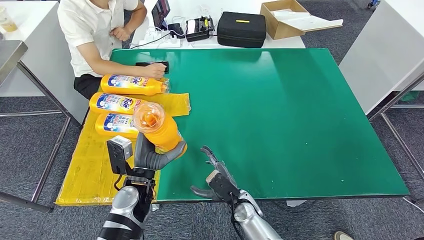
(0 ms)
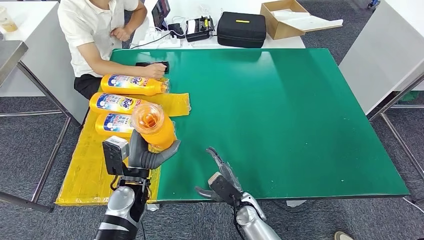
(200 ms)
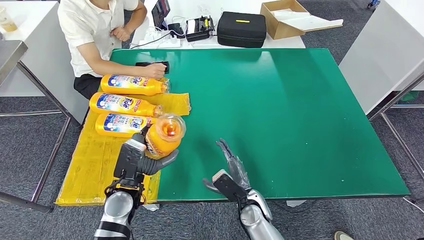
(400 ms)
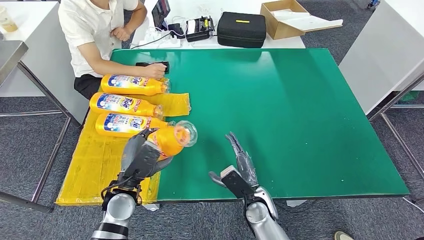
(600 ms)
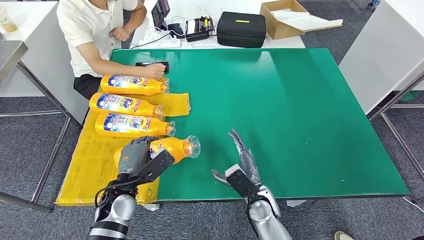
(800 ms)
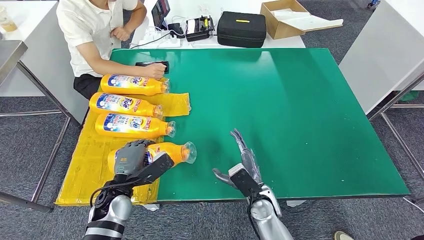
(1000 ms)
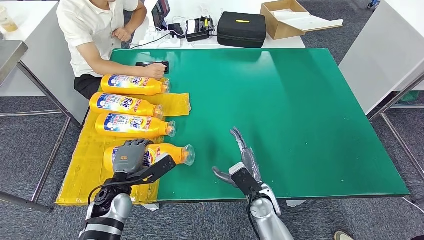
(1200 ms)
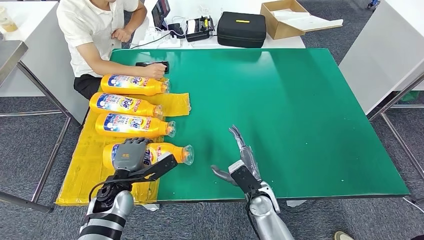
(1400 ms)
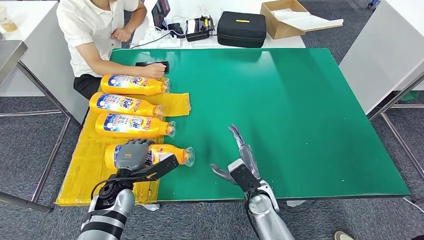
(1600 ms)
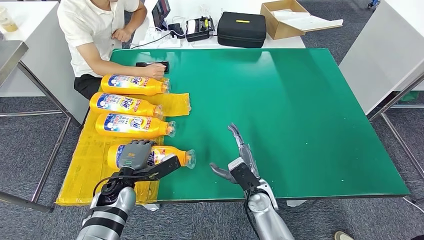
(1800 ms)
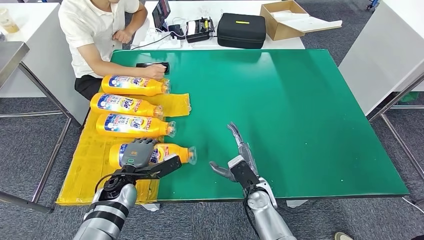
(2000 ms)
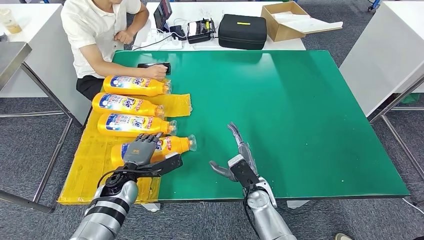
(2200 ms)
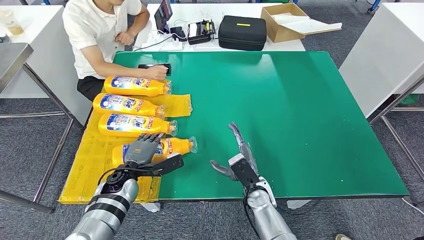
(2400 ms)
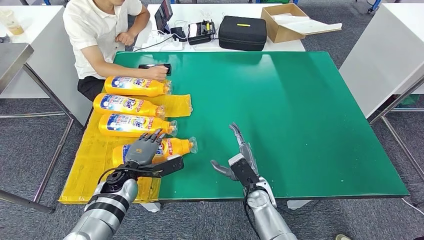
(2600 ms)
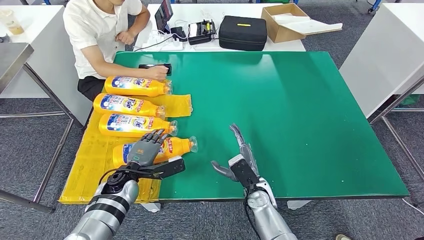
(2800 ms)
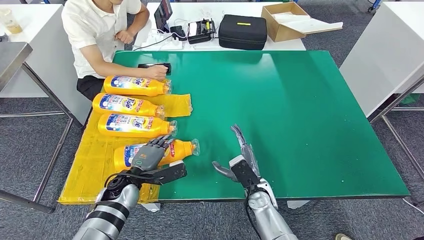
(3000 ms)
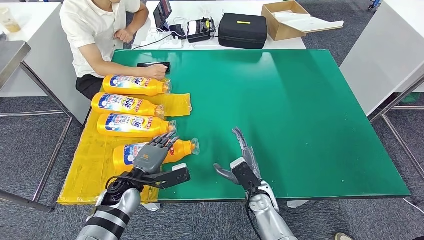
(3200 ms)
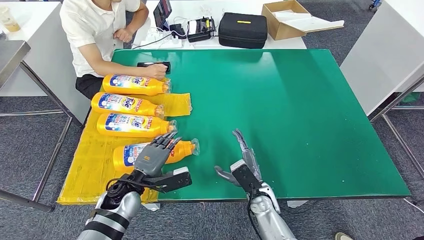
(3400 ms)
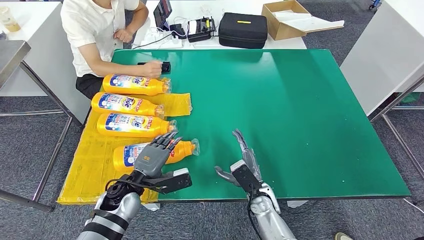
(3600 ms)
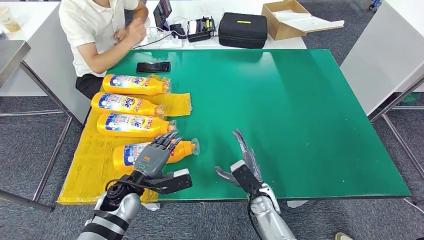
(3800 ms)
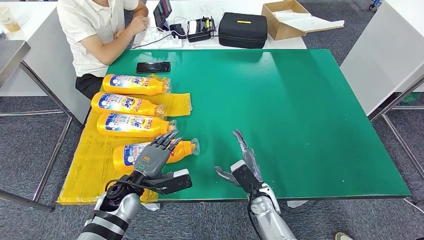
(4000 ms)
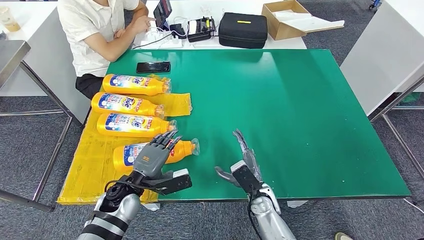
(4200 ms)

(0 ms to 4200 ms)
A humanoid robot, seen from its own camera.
Step, 0 ms - 4200 ms: Flip the fast-moving consumer goods bottle to the front side.
0 ms - 1400 ms: The right hand moves approximately 5 cm. Meanwhile the left hand is displaced to the left by roughly 5 cm.

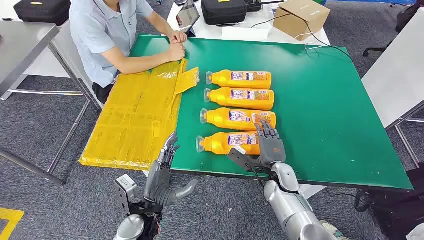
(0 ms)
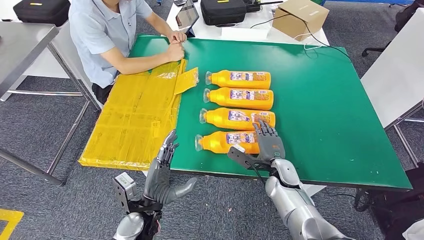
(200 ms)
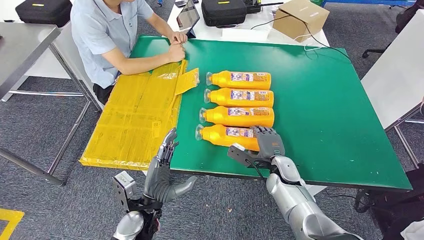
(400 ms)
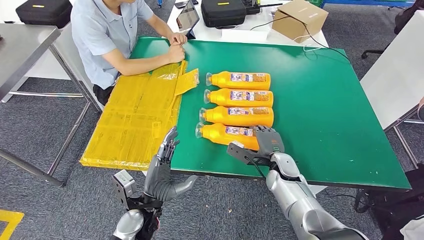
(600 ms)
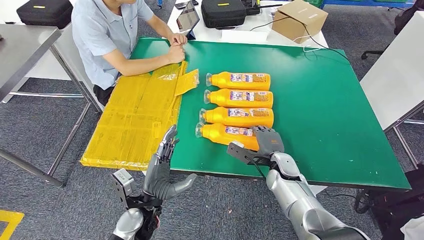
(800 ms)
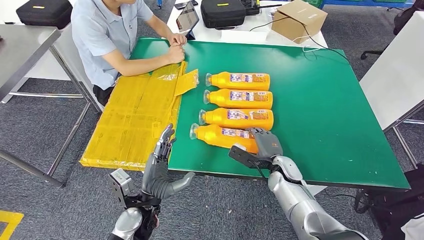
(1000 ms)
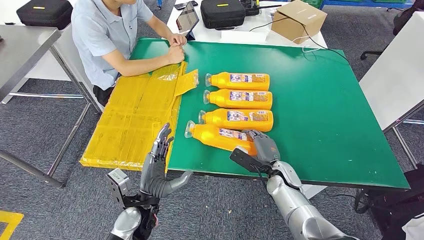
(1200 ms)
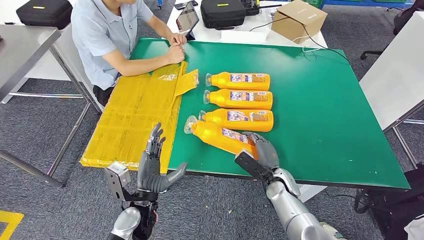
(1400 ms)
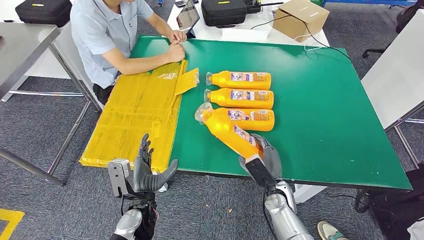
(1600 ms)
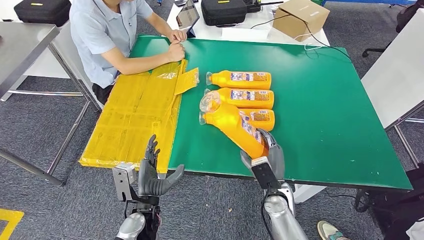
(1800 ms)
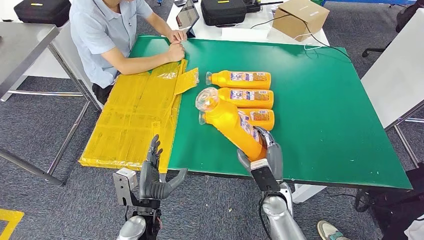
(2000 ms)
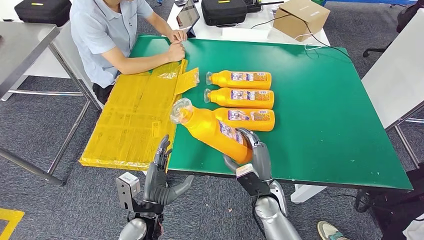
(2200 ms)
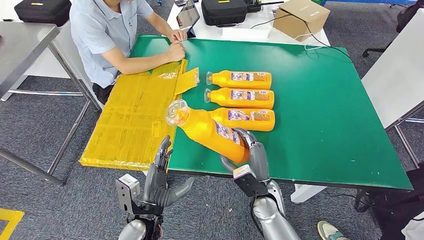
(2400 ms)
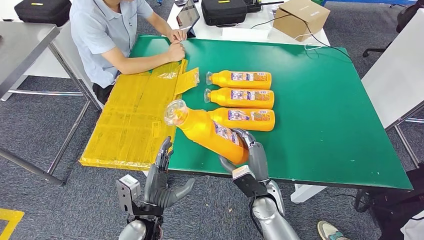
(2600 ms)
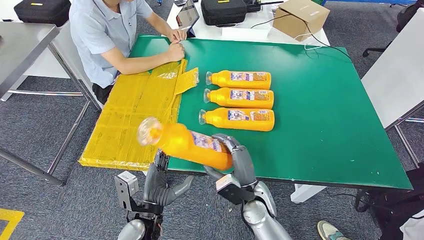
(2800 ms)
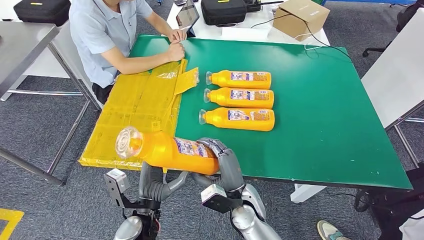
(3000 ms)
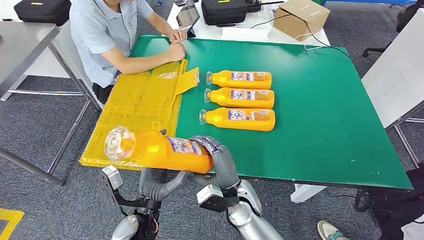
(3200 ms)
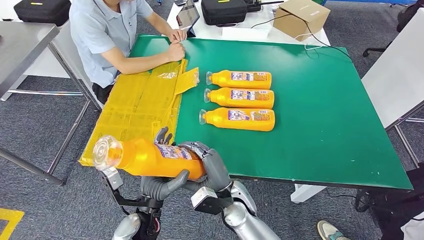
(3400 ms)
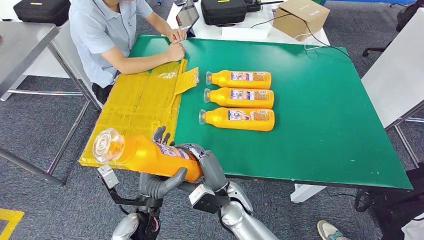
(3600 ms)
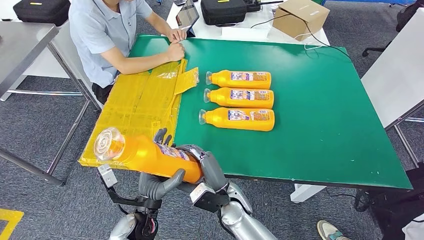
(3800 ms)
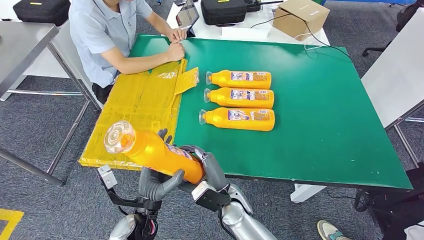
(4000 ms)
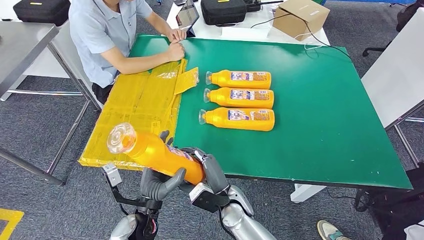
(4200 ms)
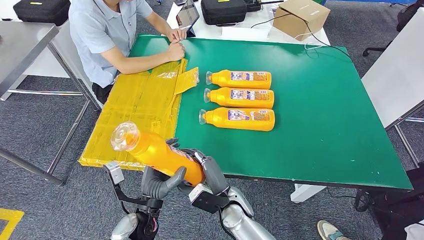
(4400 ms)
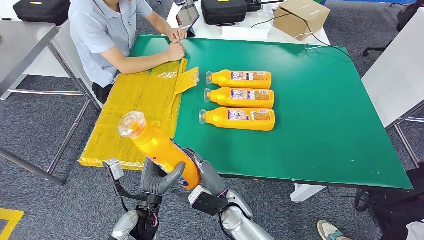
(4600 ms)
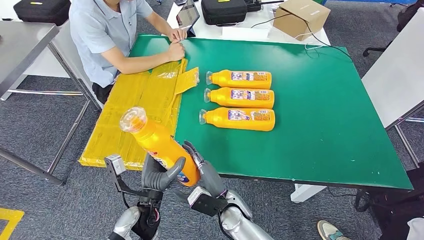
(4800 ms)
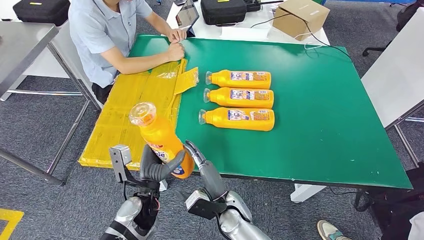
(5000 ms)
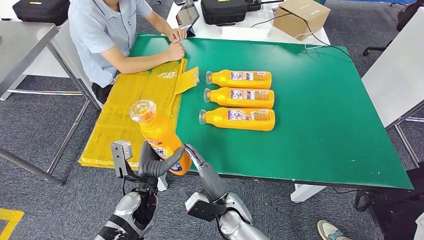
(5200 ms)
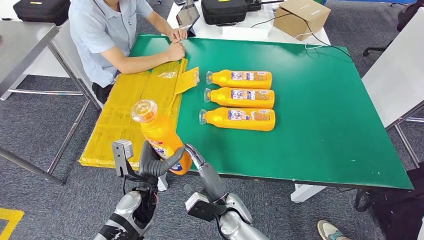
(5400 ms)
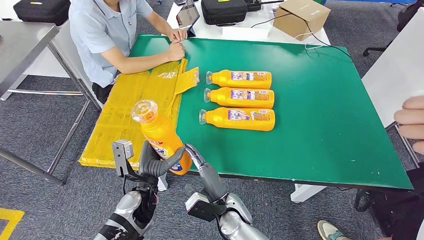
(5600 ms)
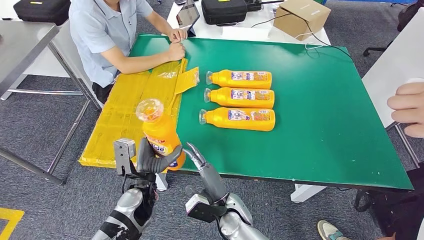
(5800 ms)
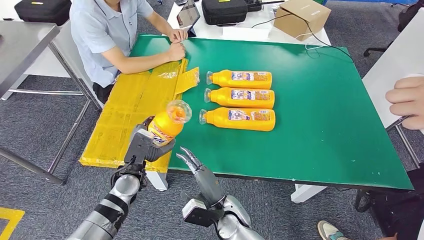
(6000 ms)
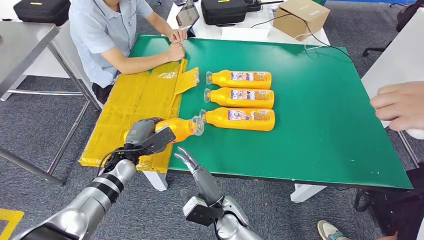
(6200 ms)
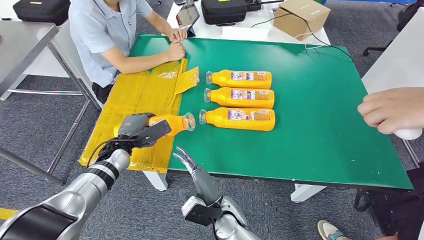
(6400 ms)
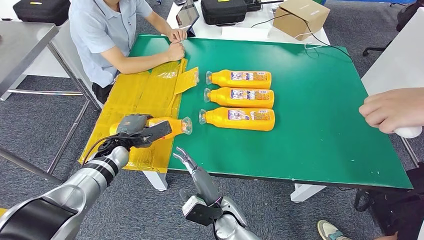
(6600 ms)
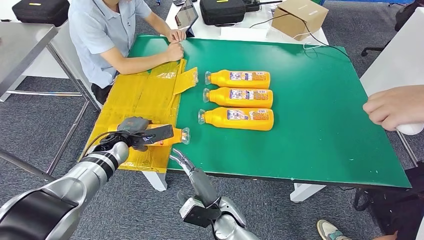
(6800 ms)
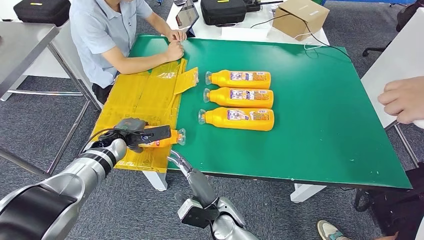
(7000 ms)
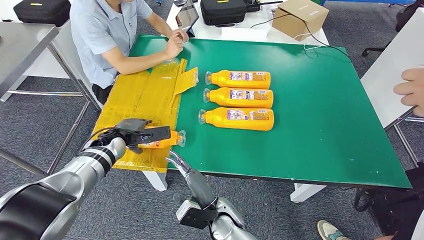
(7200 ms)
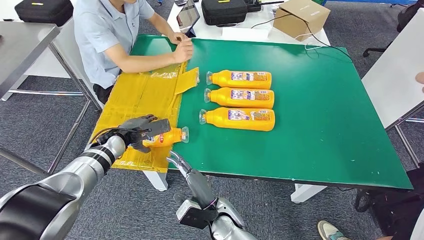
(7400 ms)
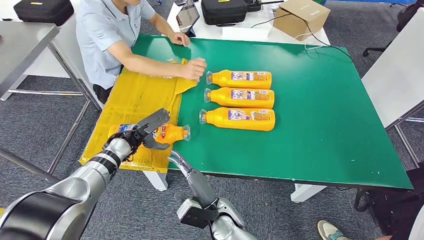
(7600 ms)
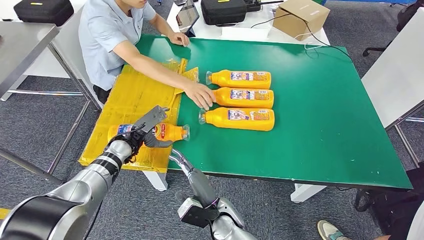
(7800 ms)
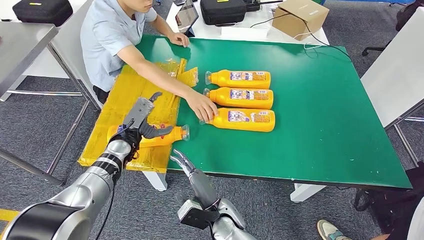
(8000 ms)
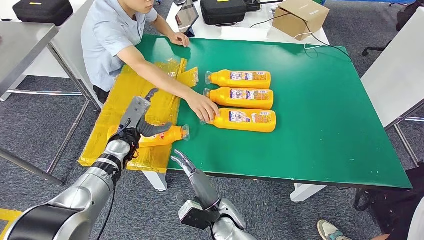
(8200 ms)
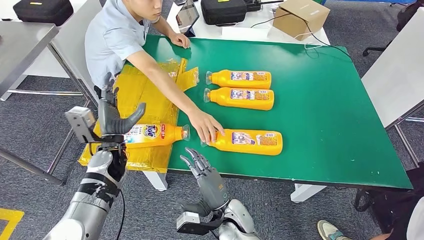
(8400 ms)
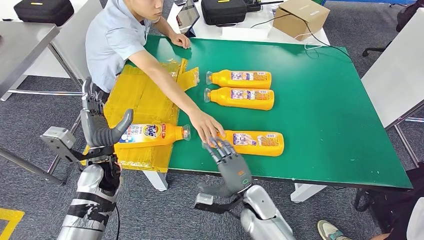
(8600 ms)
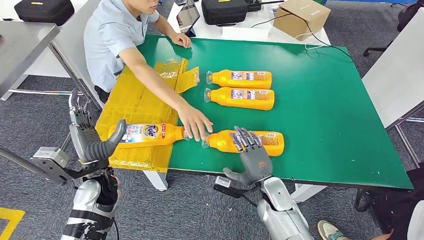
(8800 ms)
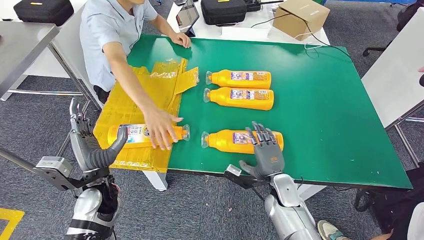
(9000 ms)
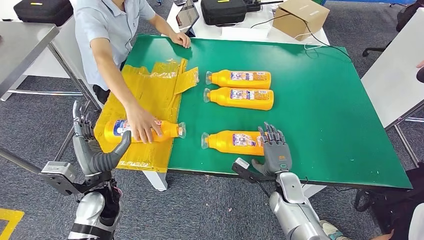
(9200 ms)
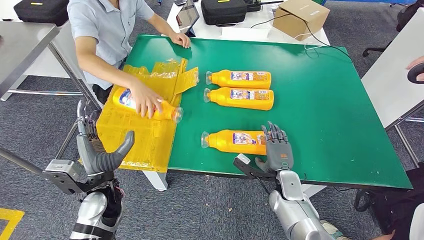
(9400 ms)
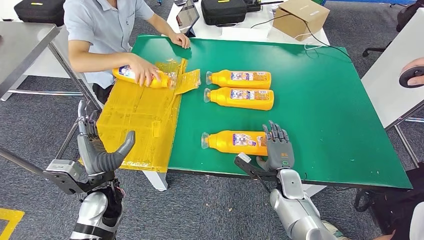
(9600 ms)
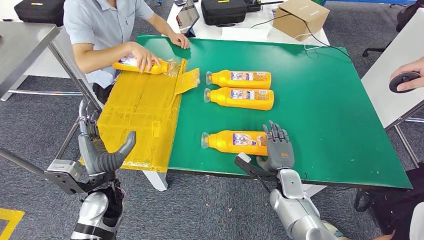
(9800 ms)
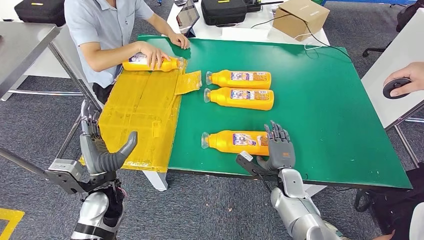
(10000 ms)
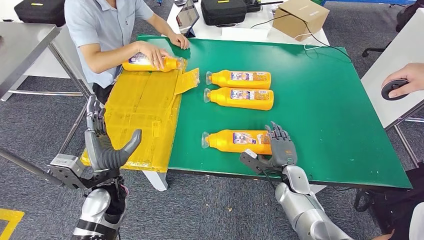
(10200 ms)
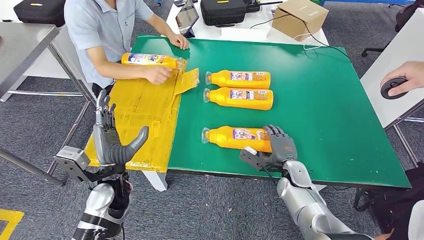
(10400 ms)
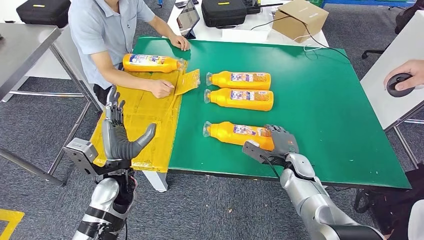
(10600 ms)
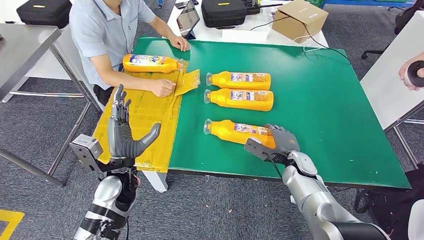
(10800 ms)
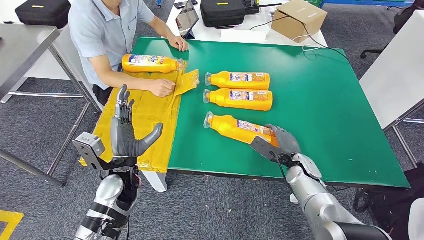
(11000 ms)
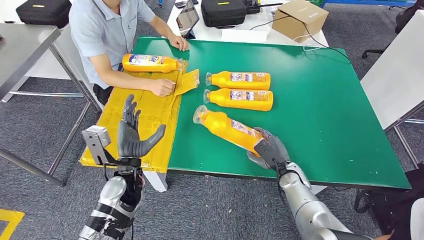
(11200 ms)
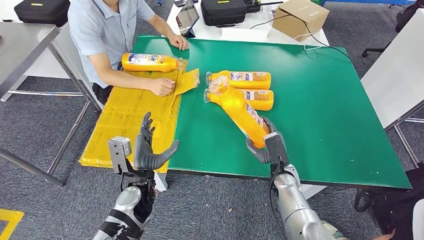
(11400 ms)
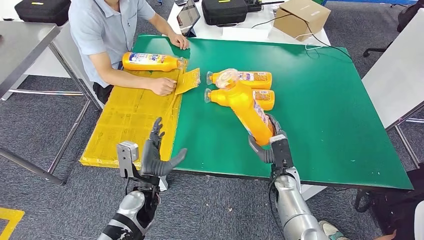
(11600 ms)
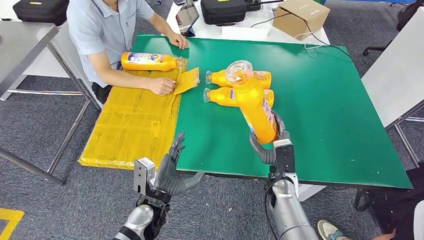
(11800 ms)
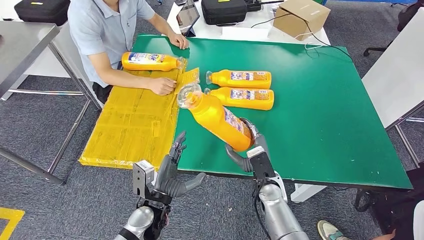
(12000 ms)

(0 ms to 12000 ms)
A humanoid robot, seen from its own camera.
Step, 0 ms - 3000 ms: Take the fast-moving consumer goods bottle from the table.
Step, 3200 ms - 8000 ms: Flip the fast-moving consumer goods bottle to the front side.
1600 ms - 3000 ms: The right hand travels to the left and upward by approximately 10 cm.
4400 ms - 6000 ms: The left hand goes some 10 cm forward and to the left.
6000 ms - 7600 ms: The left hand travels forward and to the left by some 10 cm.

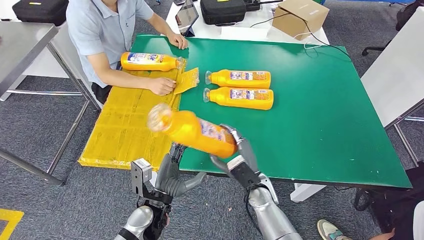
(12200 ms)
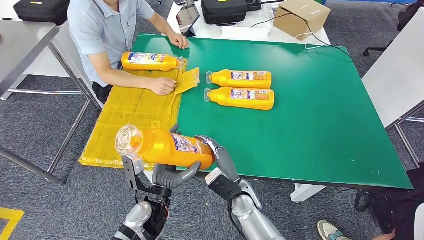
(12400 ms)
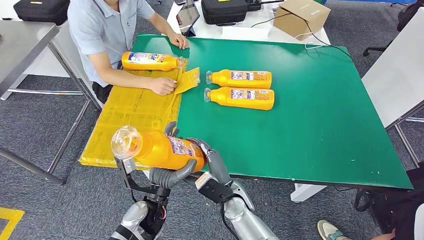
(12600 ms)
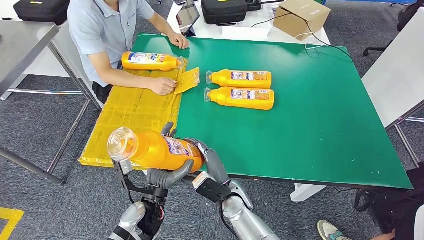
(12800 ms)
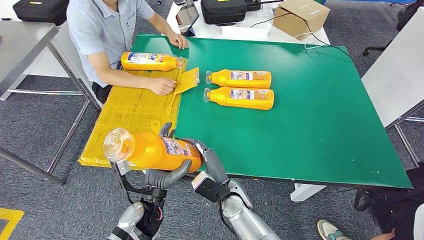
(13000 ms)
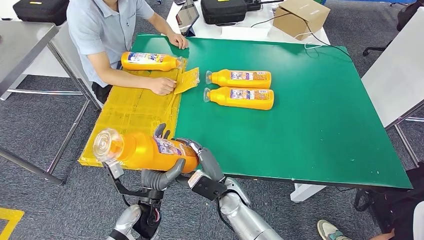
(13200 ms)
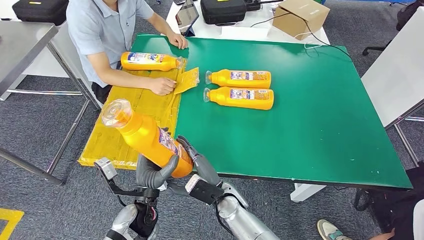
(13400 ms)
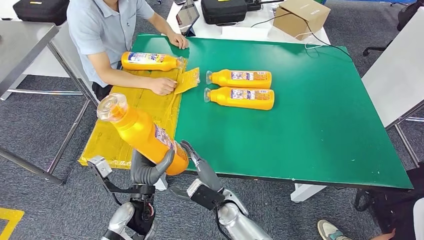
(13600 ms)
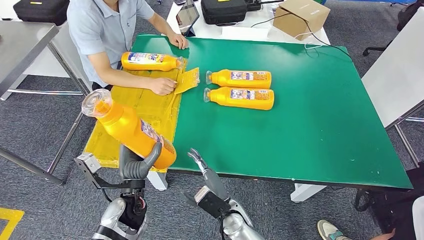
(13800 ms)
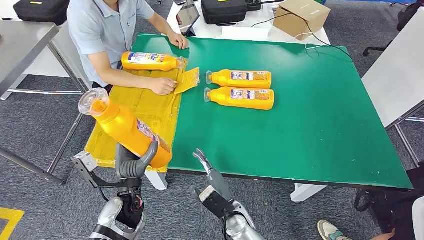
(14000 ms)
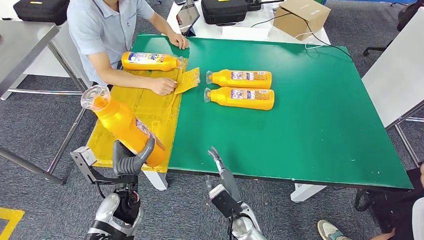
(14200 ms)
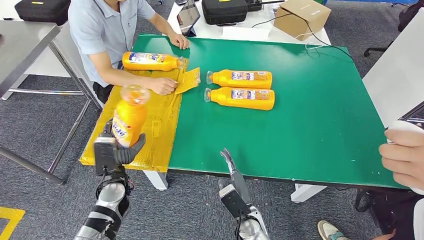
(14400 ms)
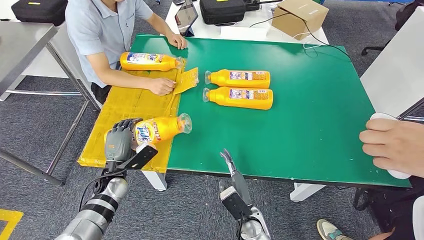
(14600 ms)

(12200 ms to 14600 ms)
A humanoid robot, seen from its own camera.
12200 ms - 13400 ms: The right hand heads to the left, covering roughly 10 cm.
13400 ms - 14600 ms: The left hand travels to the left and forward by approximately 15 cm, while the right hand travels to the right by about 5 cm.
